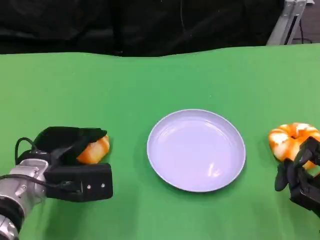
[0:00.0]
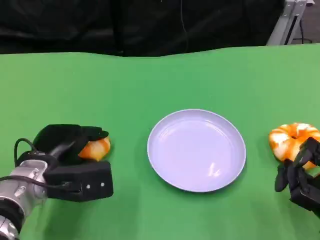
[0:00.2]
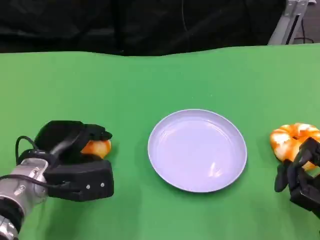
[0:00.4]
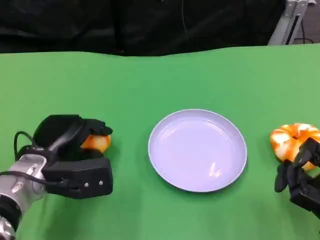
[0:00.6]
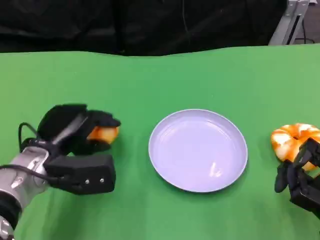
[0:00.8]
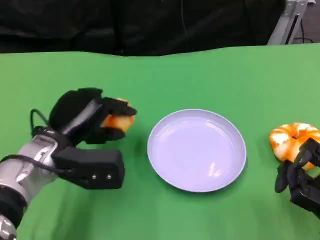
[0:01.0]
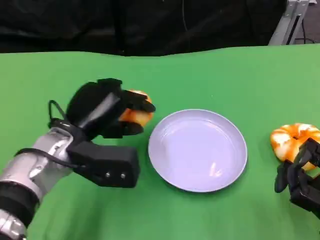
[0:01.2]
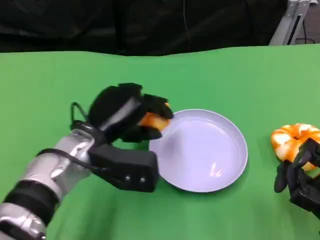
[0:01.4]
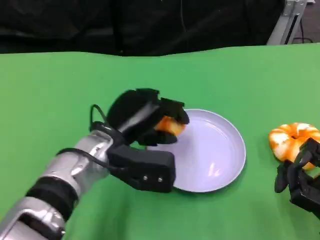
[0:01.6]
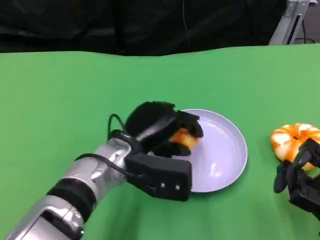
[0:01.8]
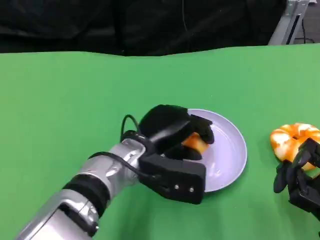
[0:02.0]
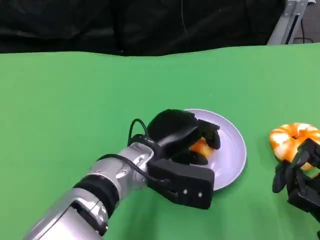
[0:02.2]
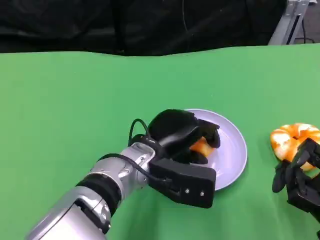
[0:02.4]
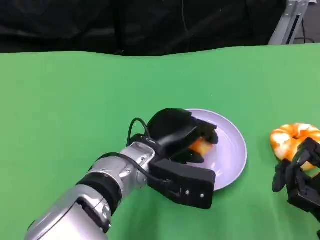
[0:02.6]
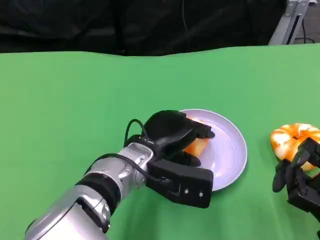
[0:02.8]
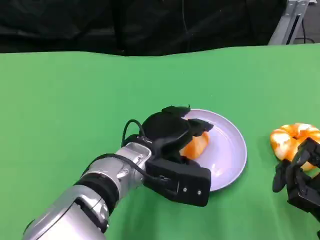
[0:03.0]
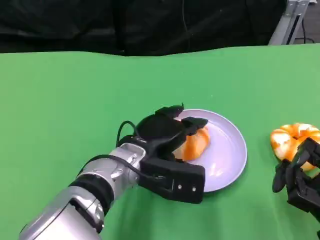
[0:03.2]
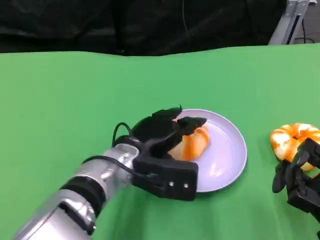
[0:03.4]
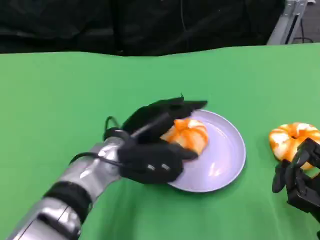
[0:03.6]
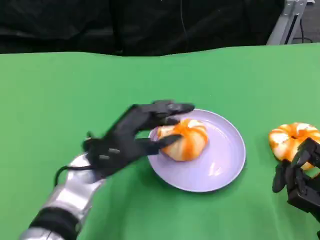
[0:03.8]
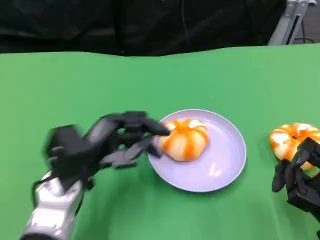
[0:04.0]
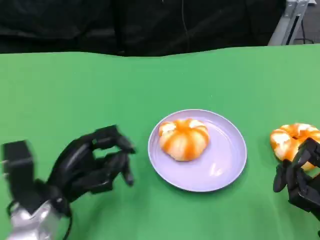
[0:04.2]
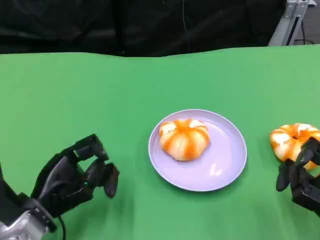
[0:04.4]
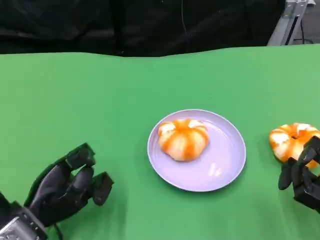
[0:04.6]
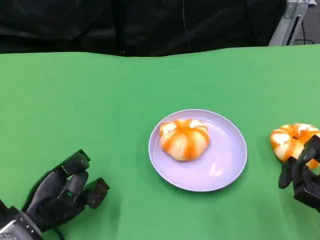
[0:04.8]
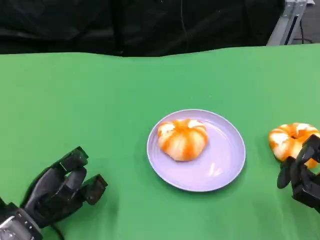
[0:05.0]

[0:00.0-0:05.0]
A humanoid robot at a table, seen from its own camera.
Task of the whole recording: Grasp the bread from the table and place it into the plate.
0:00.0 to 0:01.6: The left hand goes some 10 cm to the right.
0:03.4 to 0:05.0: The left hand shifts approximately 20 cm to the left and downward.
